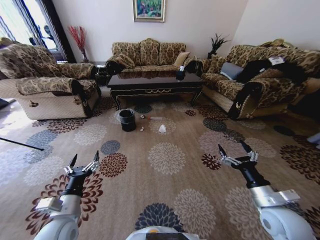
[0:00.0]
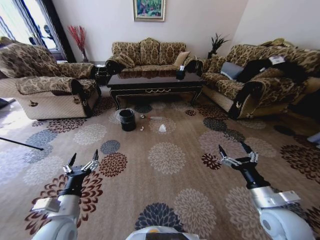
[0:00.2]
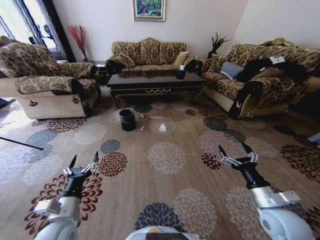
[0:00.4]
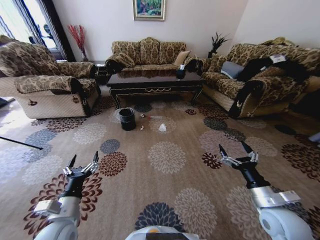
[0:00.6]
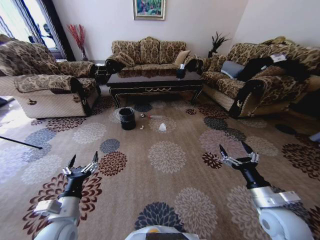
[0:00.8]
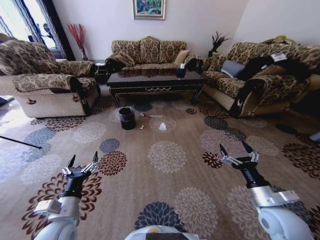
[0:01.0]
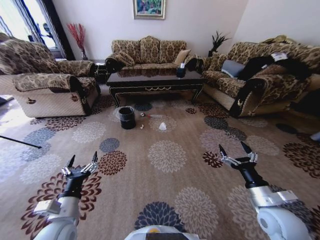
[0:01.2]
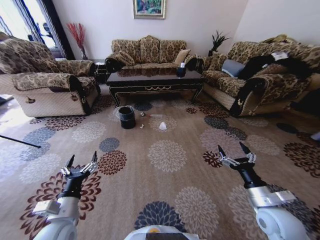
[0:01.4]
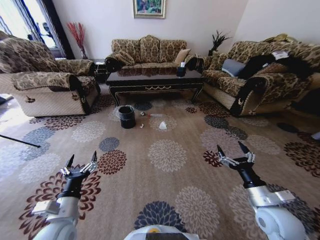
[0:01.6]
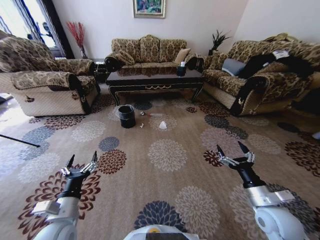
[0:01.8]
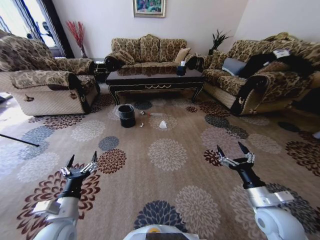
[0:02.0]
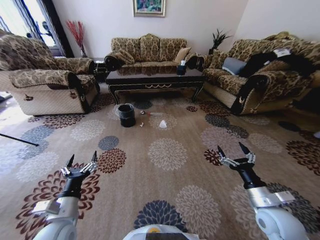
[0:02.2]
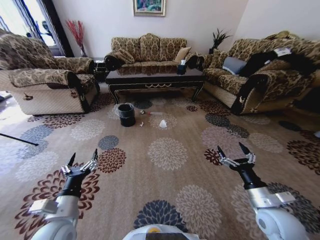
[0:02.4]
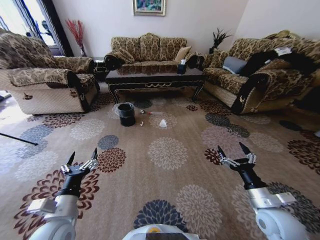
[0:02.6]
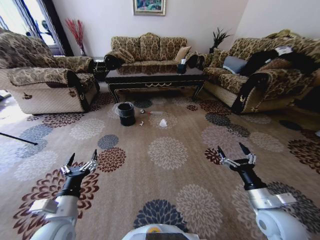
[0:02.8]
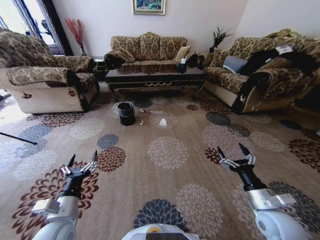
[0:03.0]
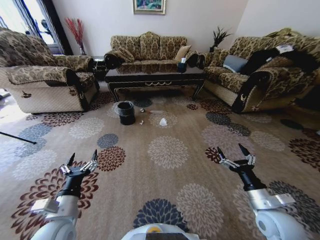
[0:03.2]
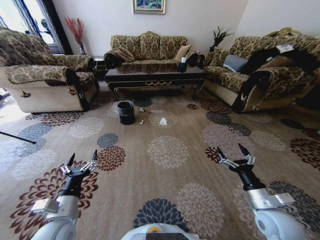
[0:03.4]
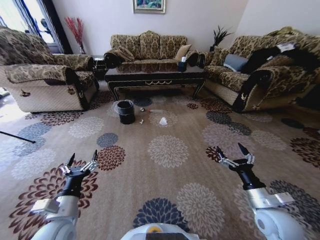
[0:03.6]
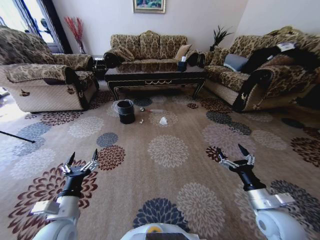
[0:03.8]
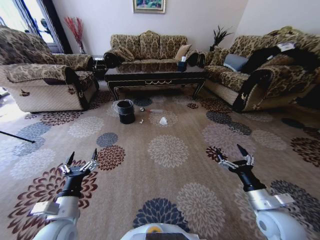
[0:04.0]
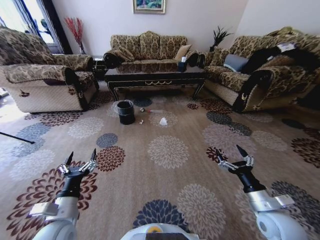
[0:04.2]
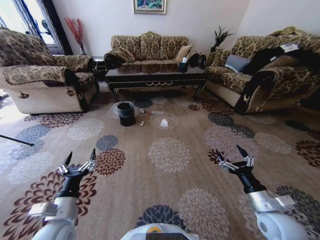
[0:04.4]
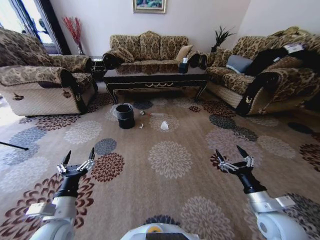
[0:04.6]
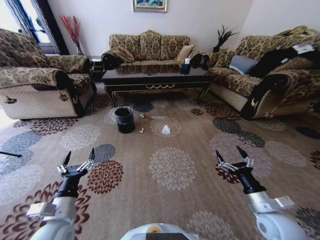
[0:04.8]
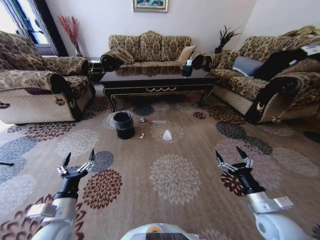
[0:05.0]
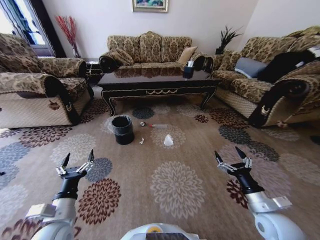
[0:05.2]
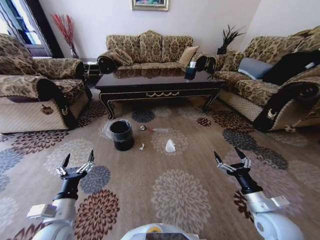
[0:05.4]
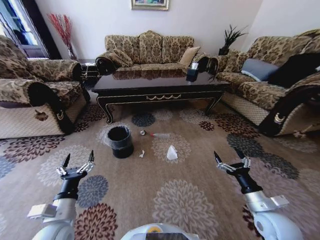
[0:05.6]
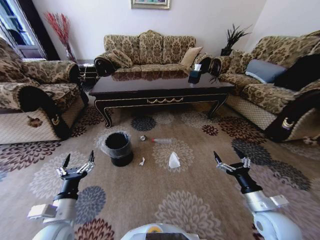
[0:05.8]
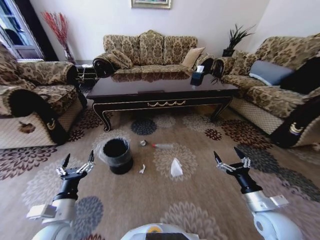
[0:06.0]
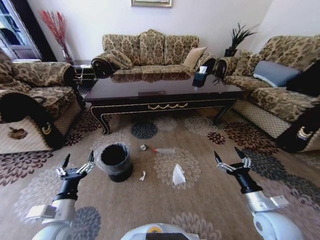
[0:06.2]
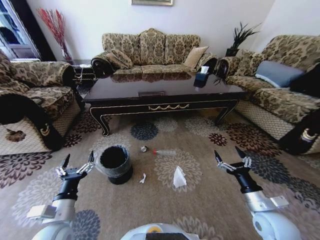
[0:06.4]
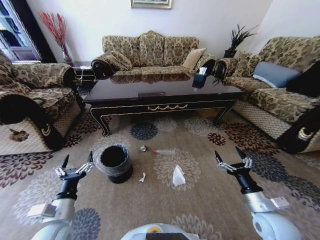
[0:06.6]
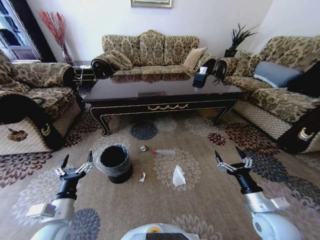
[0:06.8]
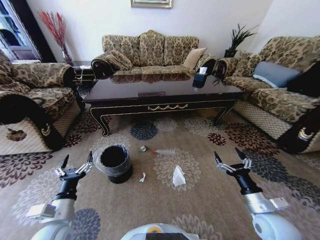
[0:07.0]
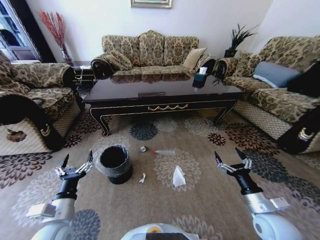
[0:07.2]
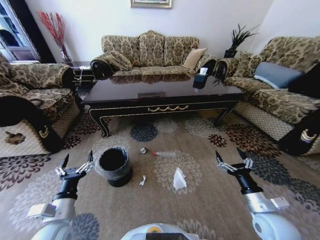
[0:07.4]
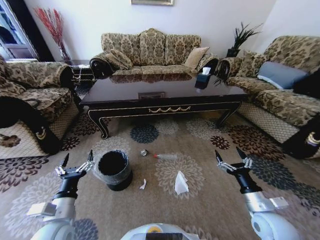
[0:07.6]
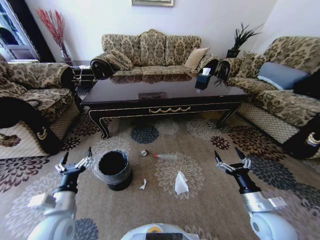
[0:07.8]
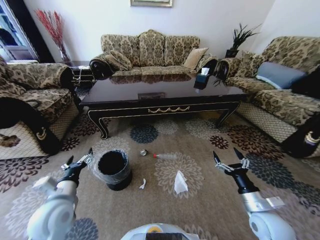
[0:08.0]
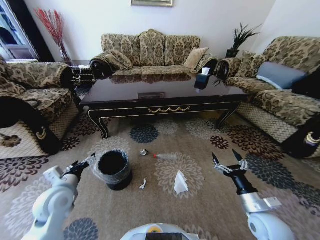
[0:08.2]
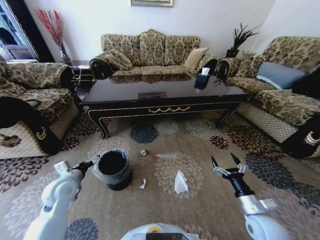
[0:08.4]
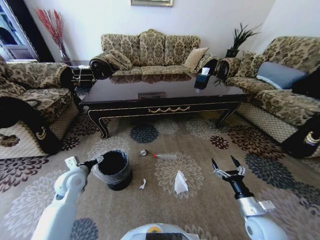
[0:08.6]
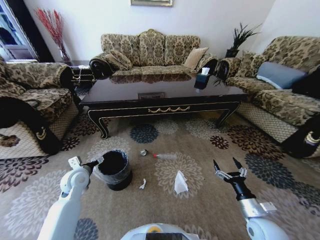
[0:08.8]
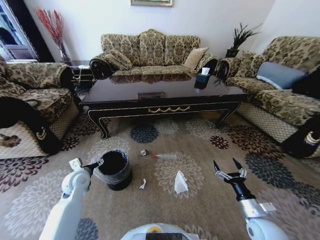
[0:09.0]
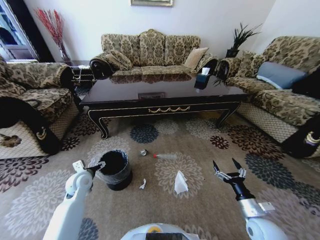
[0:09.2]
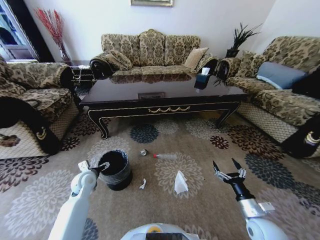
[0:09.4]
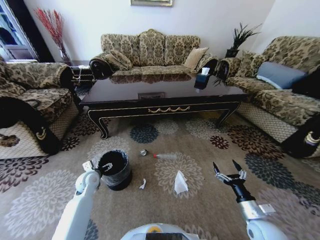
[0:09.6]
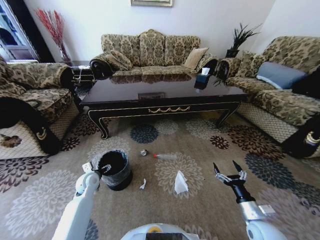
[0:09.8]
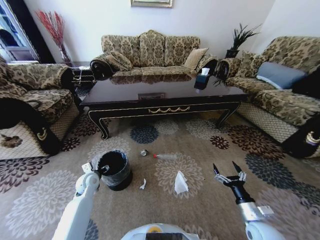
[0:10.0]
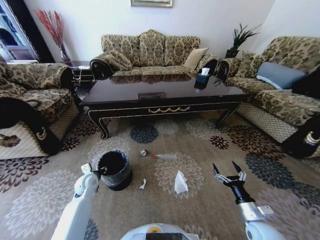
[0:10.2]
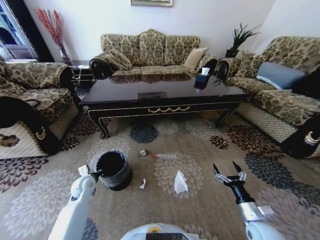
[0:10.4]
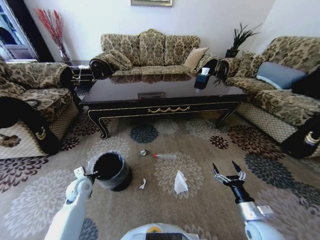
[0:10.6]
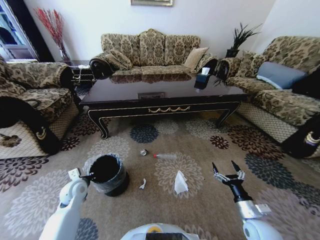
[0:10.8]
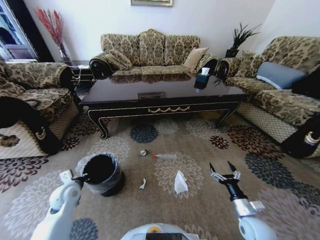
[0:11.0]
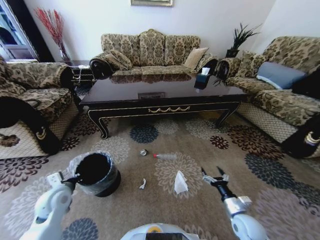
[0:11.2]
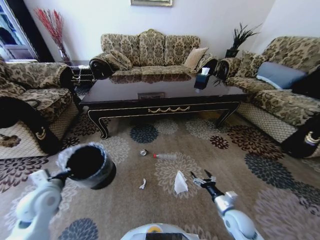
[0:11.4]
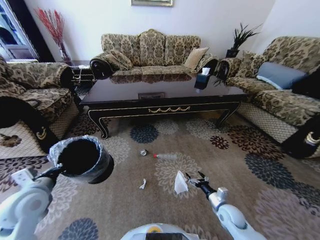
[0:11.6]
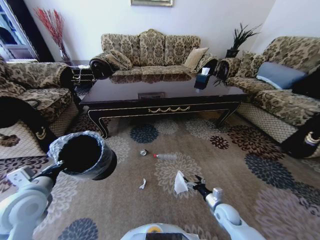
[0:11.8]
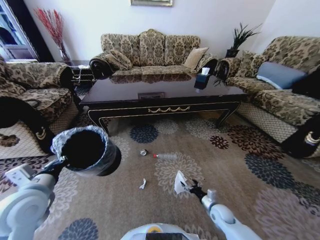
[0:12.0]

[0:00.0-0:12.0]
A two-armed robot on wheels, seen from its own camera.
Task of the whole recording: Move to the front of the table and pick up the trash from the floor, then place it into the trash bin.
0:03.0 to 0:04.4: The grippers stay close to where they were, moving slightly.
0:07.6 to 0:09.0: The right gripper shifts about 5 cm downward, while the left gripper is displaced forward by approximately 20 cm.
0:09.0 to 0:10.4: The left gripper moves downward, some 5 cm, and closes up.
0:10.4 to 0:12.0: The left gripper moves upward and backward, some 25 cm, while the right gripper moves downward and forward, some 15 cm.

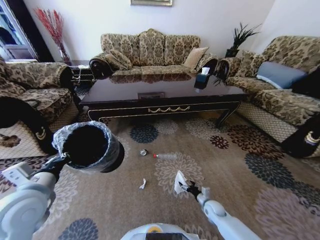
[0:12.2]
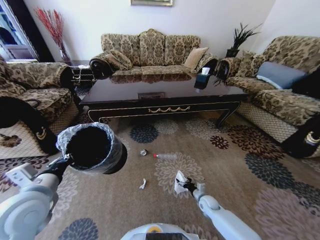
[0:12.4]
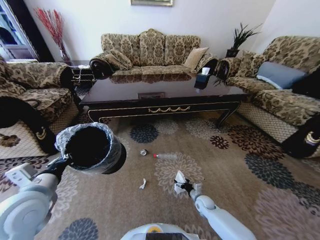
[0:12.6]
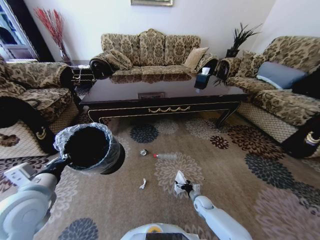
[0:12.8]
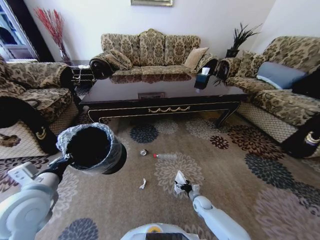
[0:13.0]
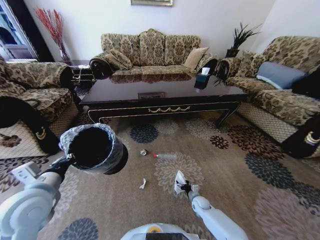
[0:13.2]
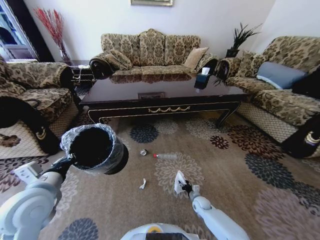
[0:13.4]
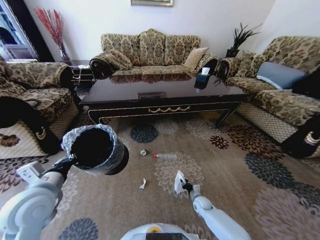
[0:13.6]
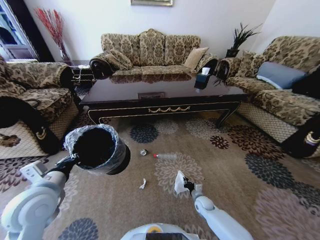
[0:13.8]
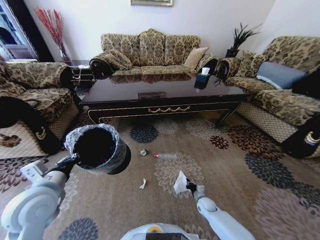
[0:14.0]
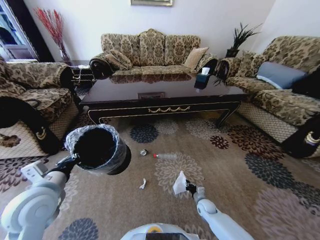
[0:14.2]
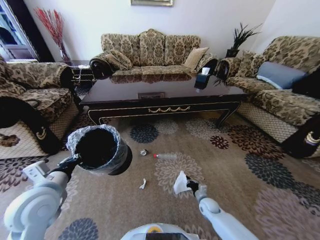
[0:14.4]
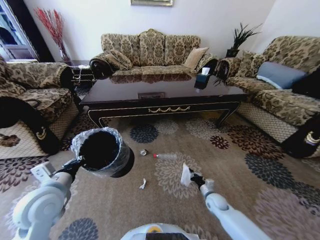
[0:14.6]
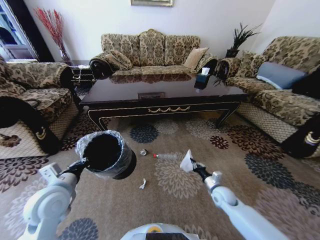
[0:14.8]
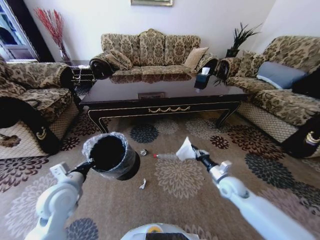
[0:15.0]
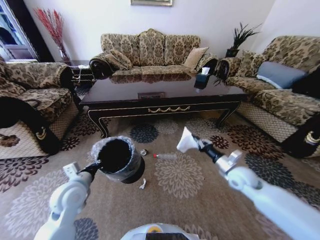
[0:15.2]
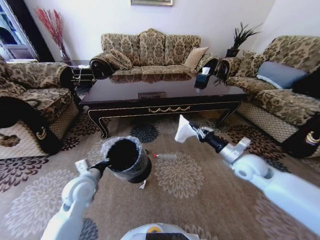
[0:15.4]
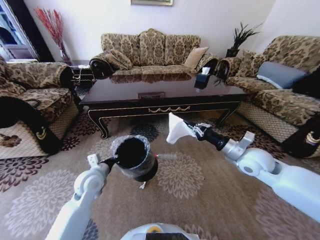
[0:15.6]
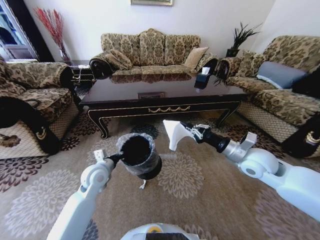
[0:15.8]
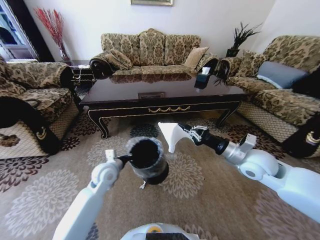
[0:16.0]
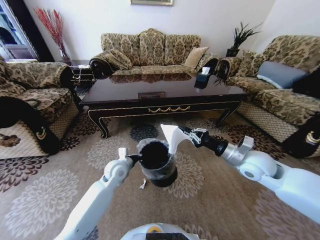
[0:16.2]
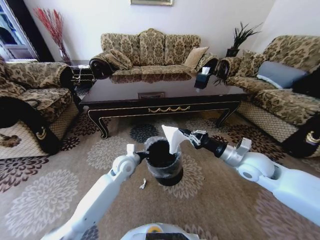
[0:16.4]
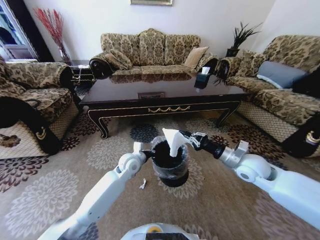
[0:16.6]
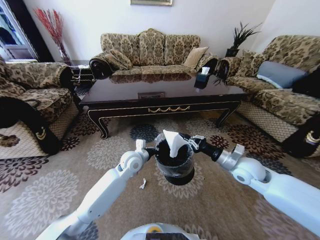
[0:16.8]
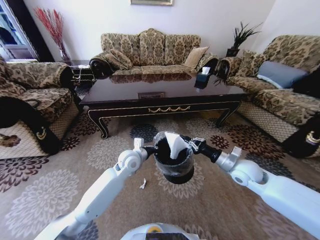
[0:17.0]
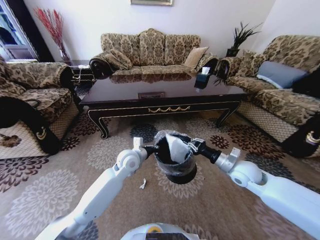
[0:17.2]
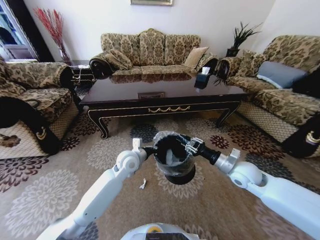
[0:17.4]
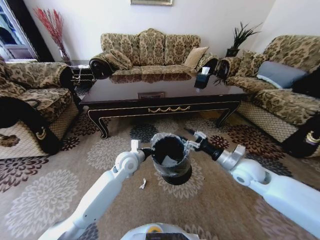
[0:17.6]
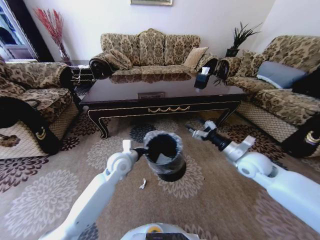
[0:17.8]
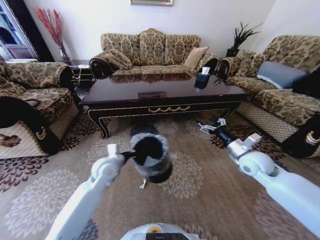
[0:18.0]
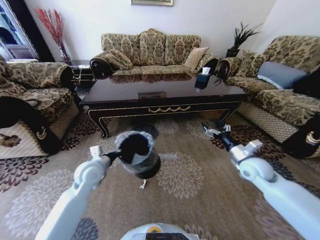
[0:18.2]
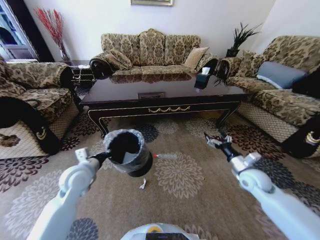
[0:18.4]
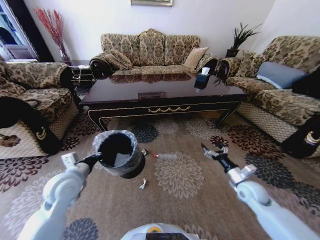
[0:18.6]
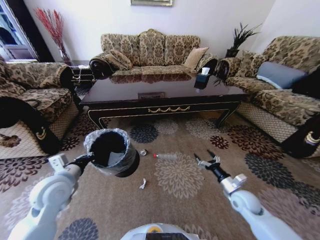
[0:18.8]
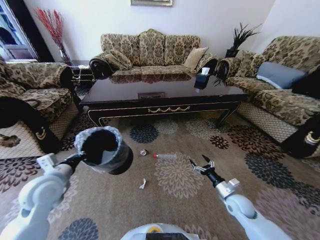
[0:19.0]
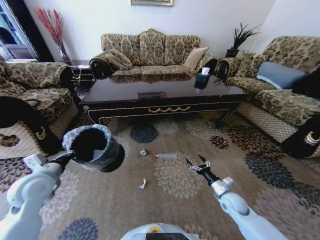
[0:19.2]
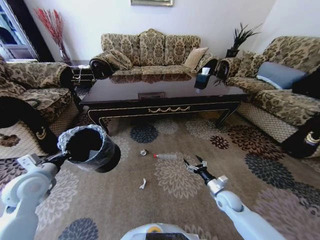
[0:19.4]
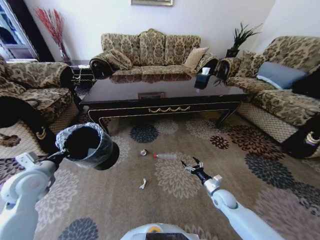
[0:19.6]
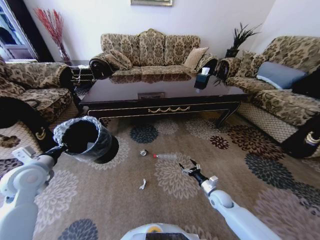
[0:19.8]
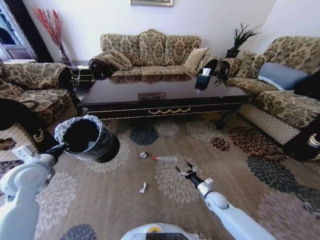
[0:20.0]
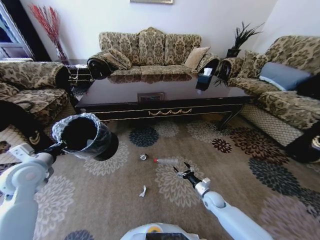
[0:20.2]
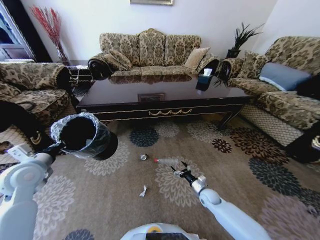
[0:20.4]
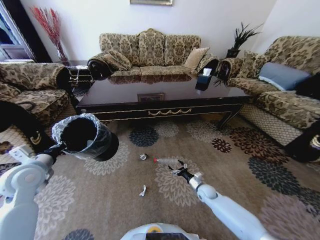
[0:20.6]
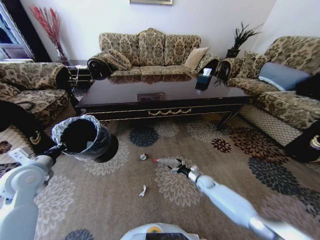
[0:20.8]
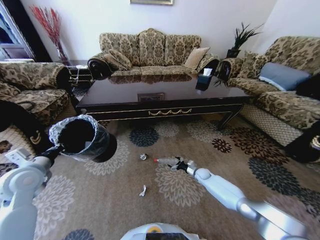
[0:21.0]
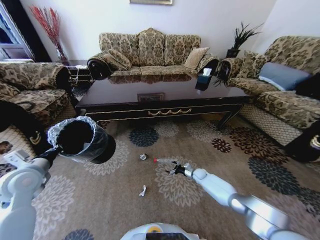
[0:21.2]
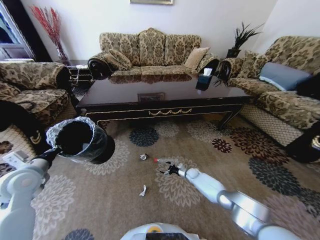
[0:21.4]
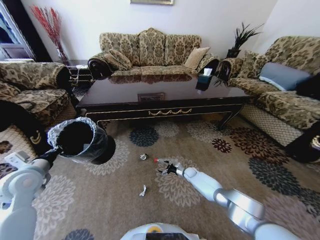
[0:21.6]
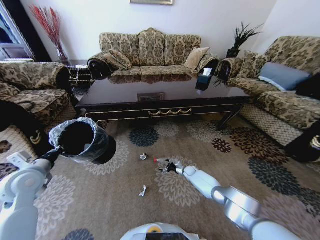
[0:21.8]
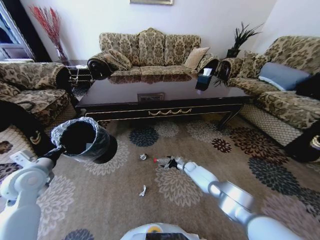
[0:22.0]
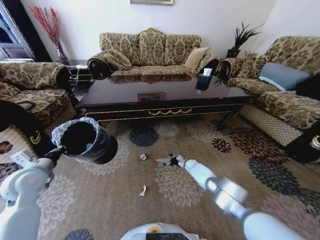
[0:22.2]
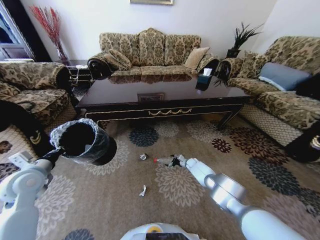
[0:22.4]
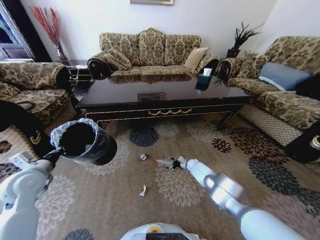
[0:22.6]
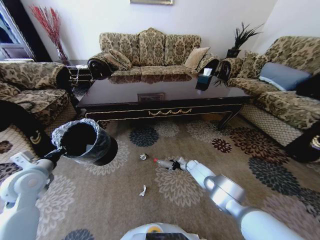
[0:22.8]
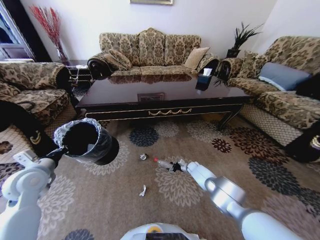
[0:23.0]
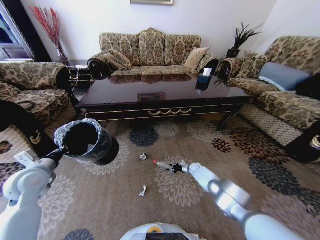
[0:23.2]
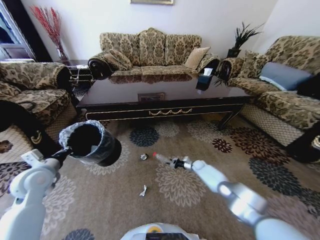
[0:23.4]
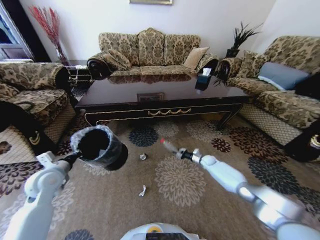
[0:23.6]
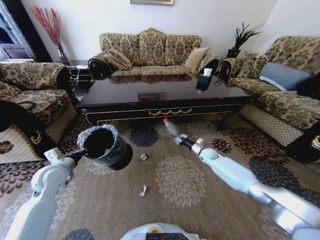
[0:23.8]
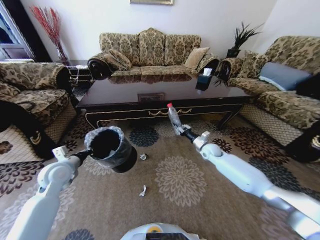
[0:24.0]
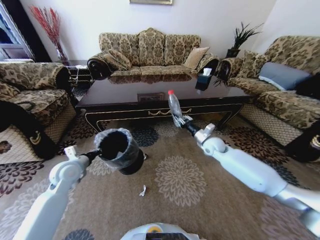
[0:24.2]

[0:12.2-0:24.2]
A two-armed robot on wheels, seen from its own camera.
Task of the whole recording: Move to the front of the table and pick up the trash from the floor, then place it into the trash bin.
0:12.2 to 0:13.8: The right gripper changes place by approximately 5 cm, and closes its fingers.
0:13.8 to 0:15.2: The left gripper travels downward by about 5 cm. The right gripper heads upward, covering about 30 cm.
0:15.2 to 0:16.6: The left gripper travels to the right and forward by some 25 cm; the right gripper is displaced upward by approximately 10 cm.
0:16.6 to 0:18.2: The left gripper shifts roughly 15 cm to the left and backward, while the right gripper changes place by roughly 5 cm, and opens up.
0:18.2 to 0:19.8: The left gripper moves to the left, some 15 cm, while the right gripper moves downward, about 25 cm.
0:19.8 to 0:21.2: The right gripper heads forward and downward, covering some 20 cm.
0:21.2 to 0:22.6: The right gripper moves forward, roughly 10 cm.
0:22.6 to 0:24.2: The right gripper is displaced upward by about 30 cm, and closes up. The left gripper goes approximately 10 cm to the right and forward.
